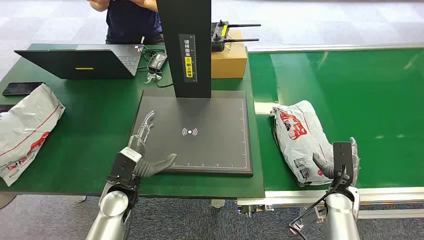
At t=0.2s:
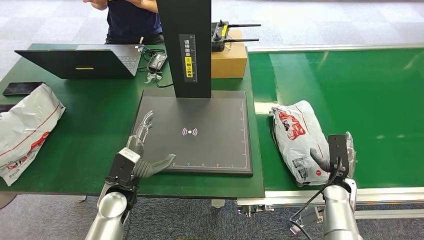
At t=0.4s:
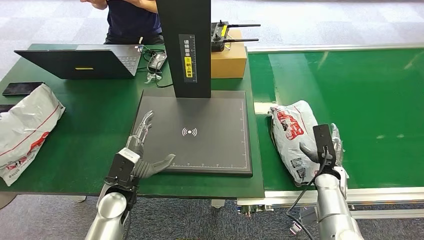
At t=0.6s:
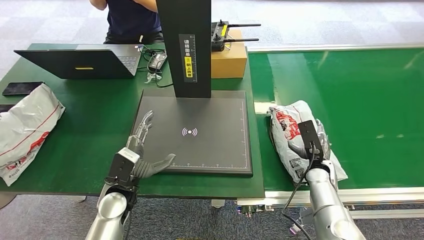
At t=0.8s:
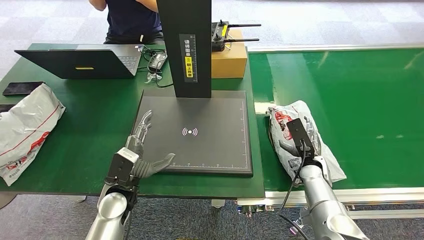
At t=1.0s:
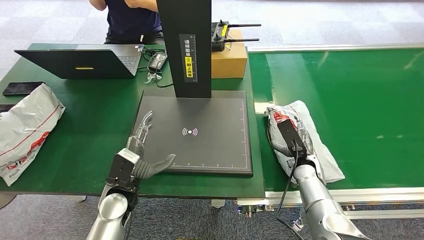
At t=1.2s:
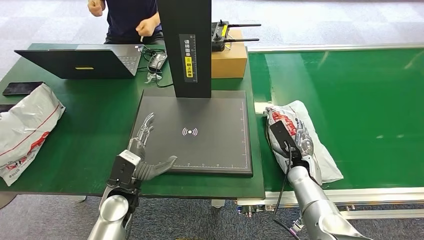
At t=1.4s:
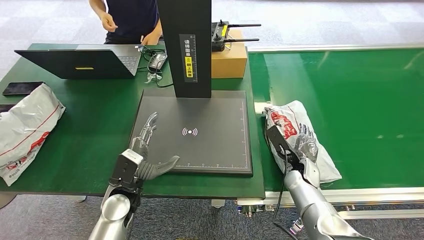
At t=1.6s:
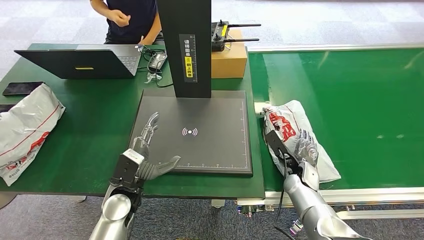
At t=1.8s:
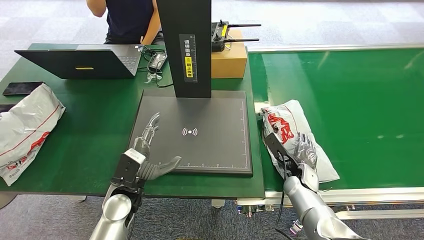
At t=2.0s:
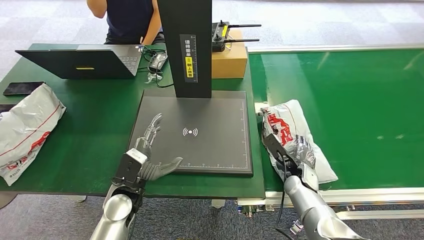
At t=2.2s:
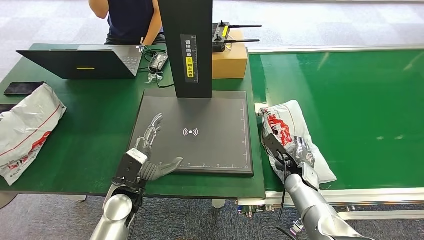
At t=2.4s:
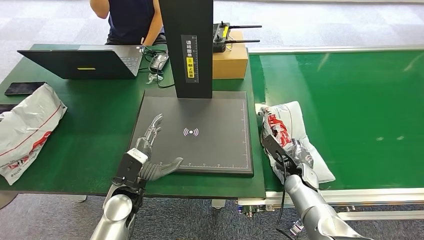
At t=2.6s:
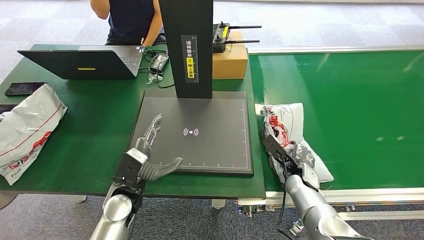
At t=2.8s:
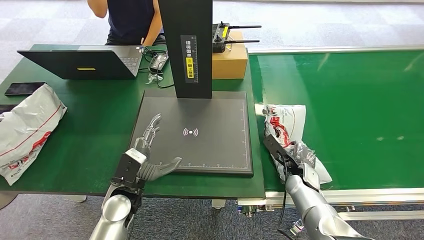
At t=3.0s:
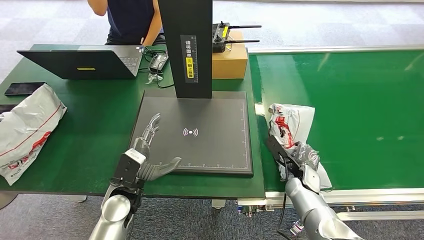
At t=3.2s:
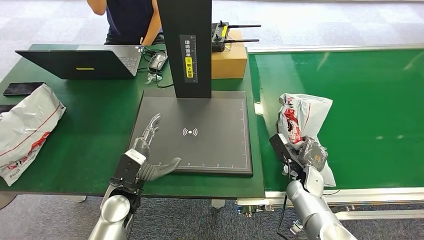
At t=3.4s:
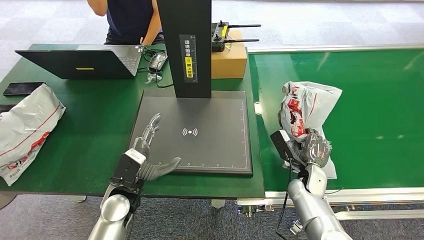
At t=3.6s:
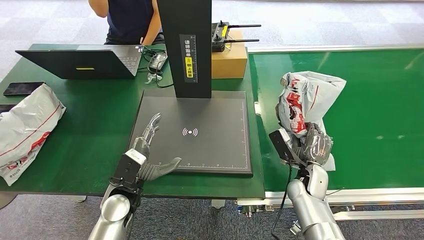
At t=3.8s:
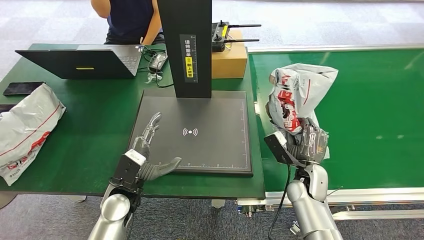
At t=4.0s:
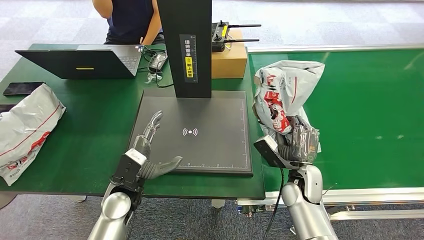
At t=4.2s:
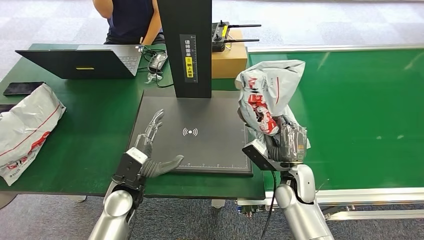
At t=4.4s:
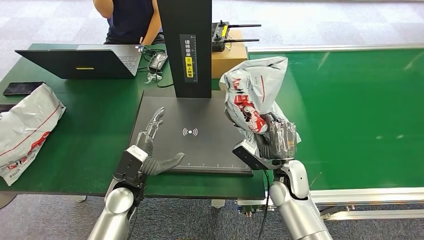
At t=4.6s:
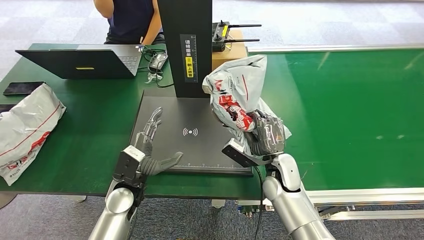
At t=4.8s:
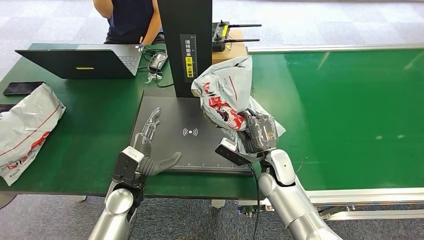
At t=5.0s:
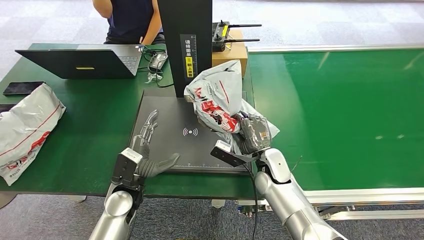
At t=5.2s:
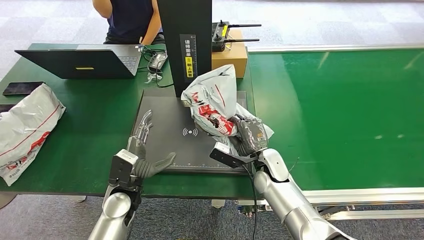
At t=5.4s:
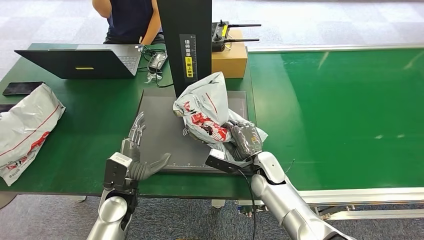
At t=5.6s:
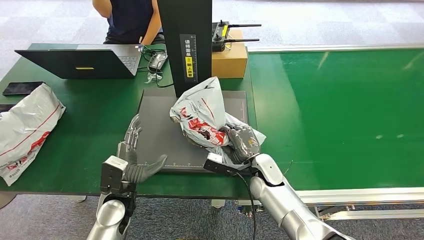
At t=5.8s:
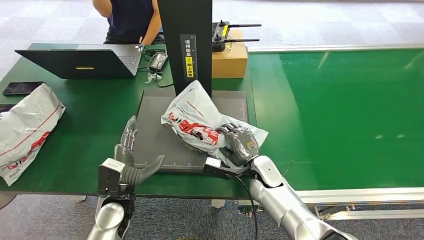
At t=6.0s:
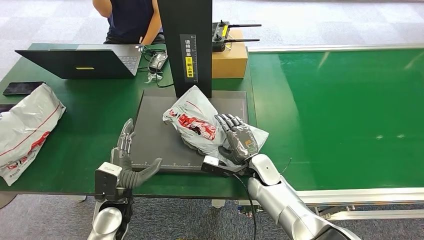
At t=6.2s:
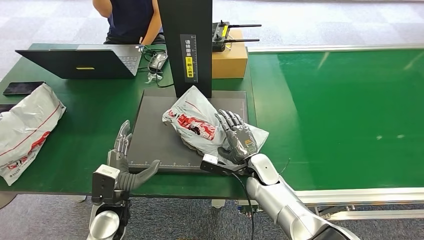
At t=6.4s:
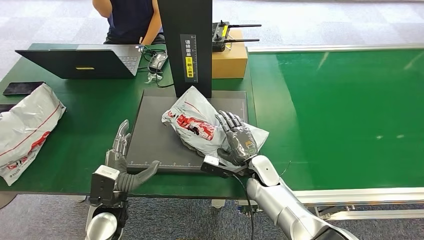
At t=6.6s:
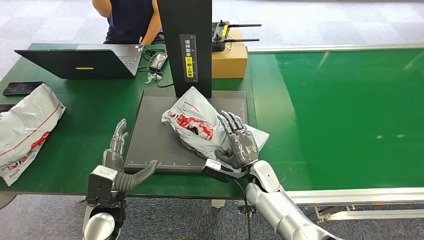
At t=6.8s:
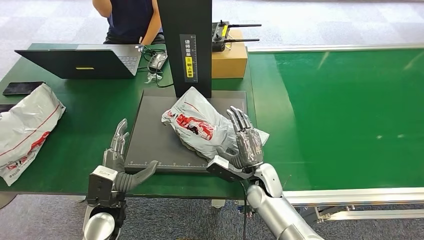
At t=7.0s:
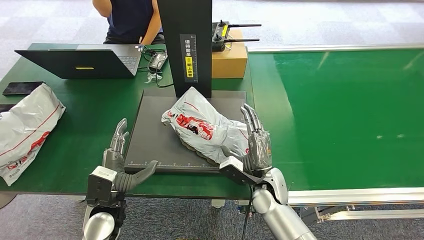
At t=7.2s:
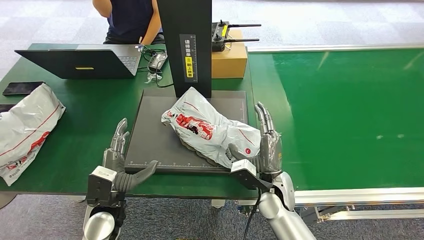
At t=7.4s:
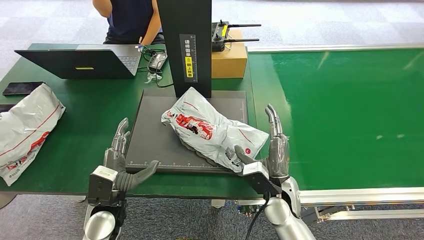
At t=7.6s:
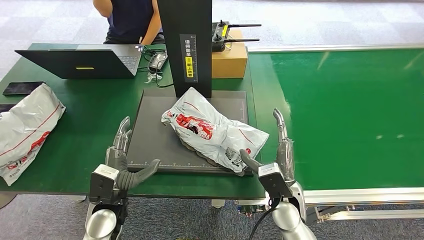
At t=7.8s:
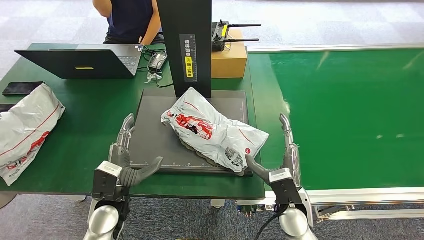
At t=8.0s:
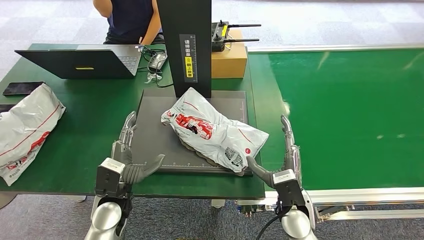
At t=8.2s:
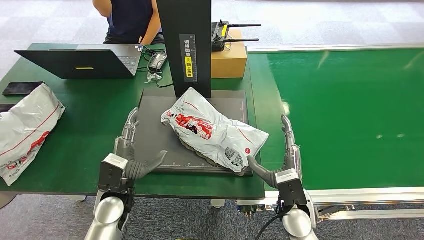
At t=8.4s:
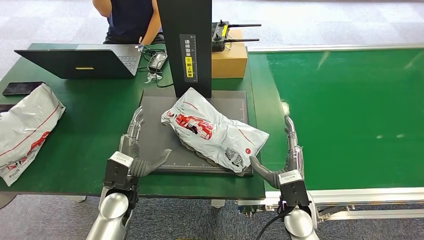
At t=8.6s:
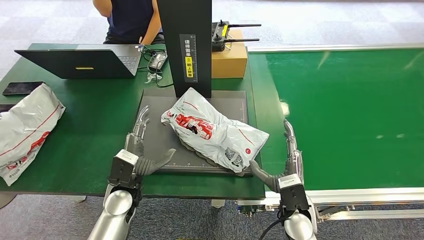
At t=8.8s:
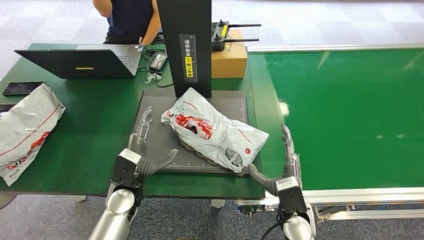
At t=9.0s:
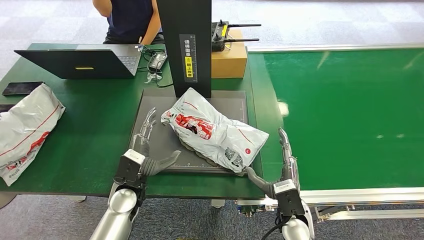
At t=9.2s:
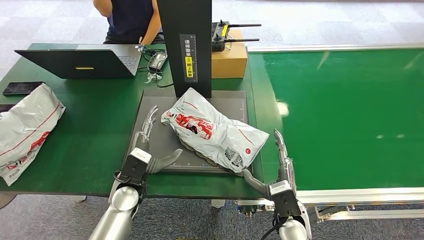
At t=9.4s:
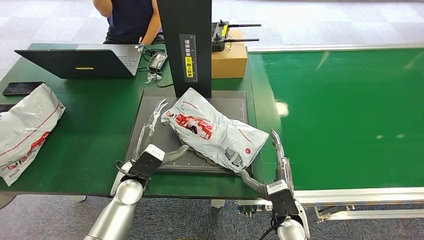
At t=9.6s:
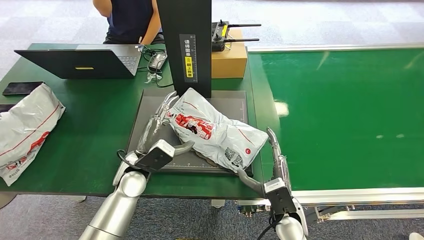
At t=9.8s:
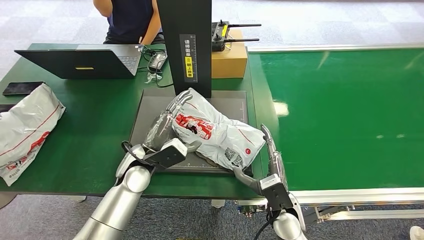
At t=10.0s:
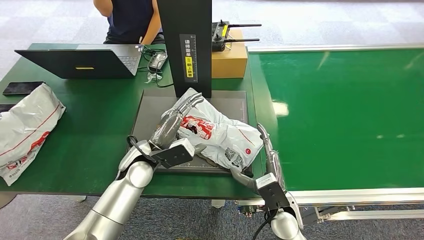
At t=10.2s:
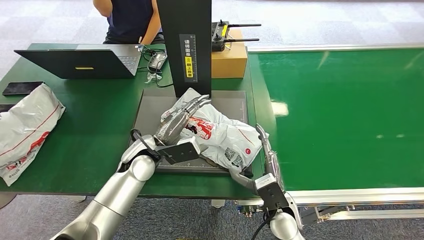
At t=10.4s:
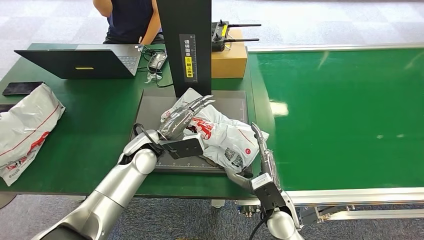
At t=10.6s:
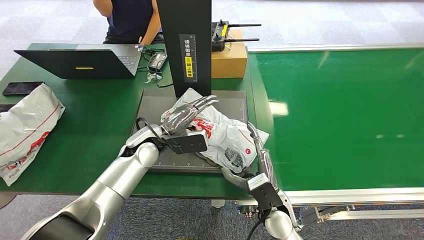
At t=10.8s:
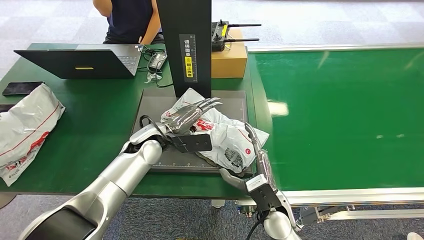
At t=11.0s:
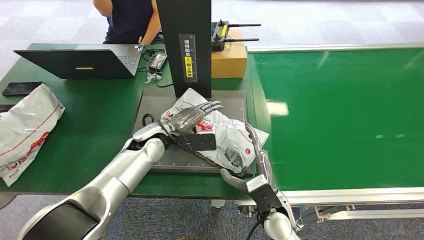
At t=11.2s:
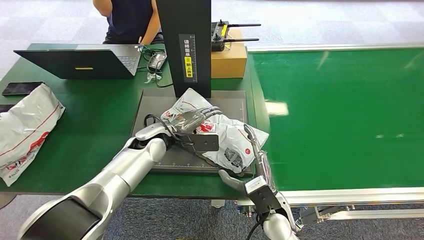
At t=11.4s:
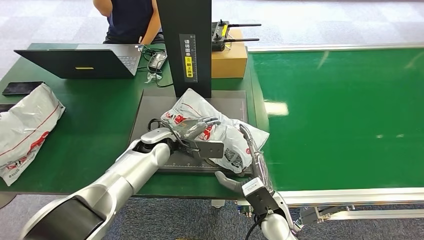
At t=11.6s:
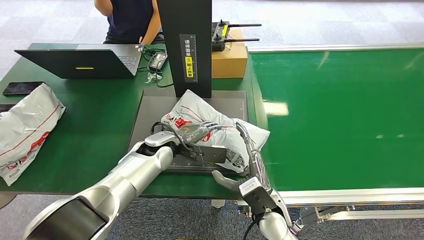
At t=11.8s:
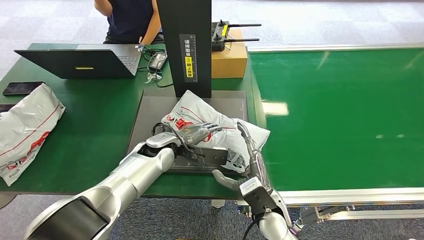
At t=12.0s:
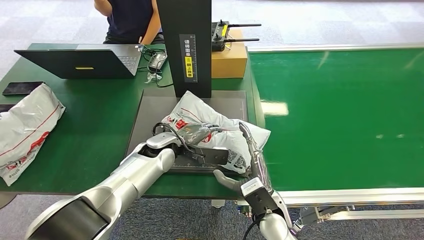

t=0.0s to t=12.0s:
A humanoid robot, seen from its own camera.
Task of the whole recording: Weigh the package on the weighing device and place it in the left basket.
Step, t=0.0s to t=3.6s: Pick up the package from the conveyor belt.
Step, t=3.8s to t=7.4s: Place the package onto the inbound machine.
t=1.6s to t=3.0s: There are only small adjustments of the hands.
t=3.0s to t=4.4s: The right hand travels upward and to the left by roughly 10 cm.
t=4.4s to t=6.0s: The left hand shifts by approximately 5 cm. The right hand is displaced to the left by roughly 5 cm.
t=6.0s to t=7.6s: The right hand shifts roughly 10 cm backward.
t=7.6s to t=9.0s: The right hand ends up roughly 5 cm from where it was. The left hand shifts by approximately 5 cm.
t=9.0s to t=10.4s: The left hand travels forward and upward by approximately 10 cm.

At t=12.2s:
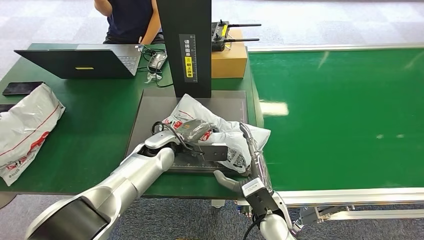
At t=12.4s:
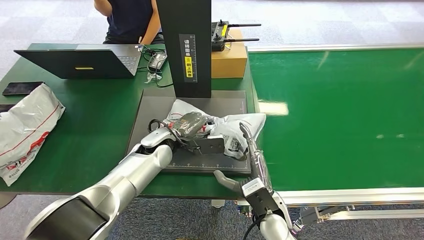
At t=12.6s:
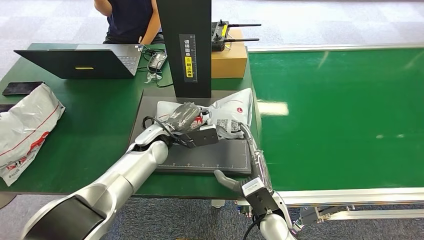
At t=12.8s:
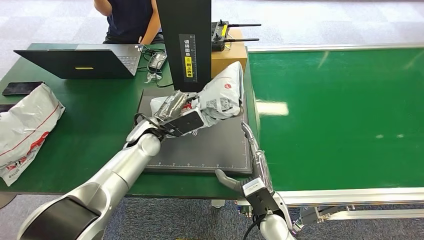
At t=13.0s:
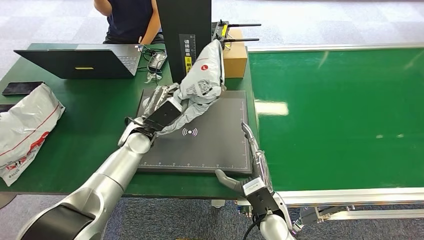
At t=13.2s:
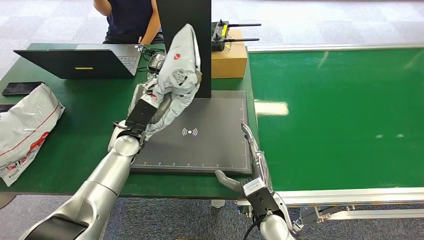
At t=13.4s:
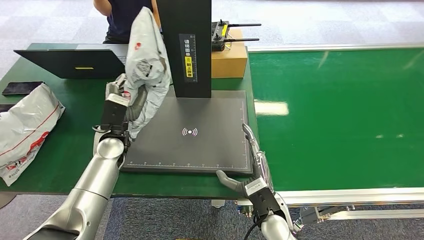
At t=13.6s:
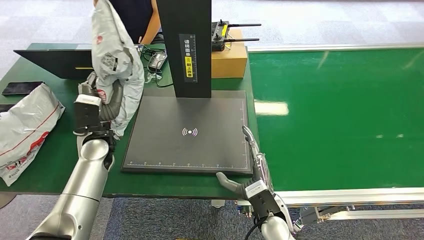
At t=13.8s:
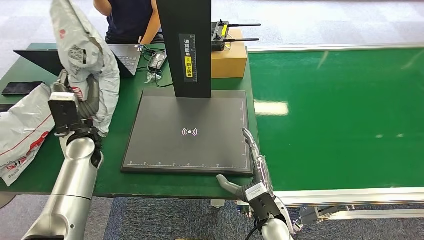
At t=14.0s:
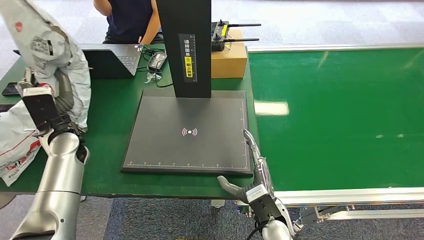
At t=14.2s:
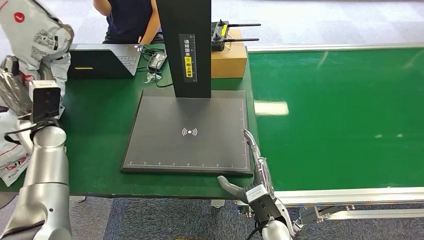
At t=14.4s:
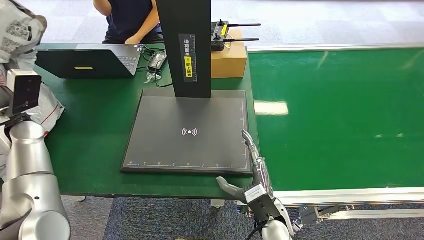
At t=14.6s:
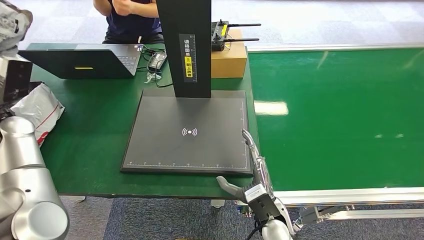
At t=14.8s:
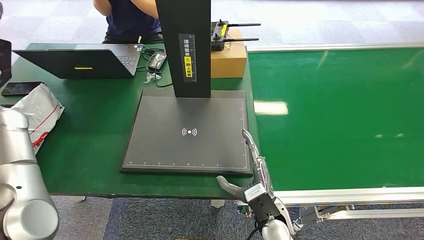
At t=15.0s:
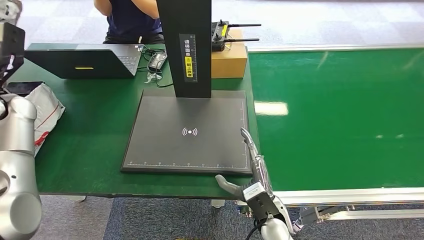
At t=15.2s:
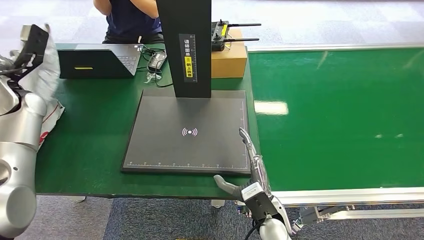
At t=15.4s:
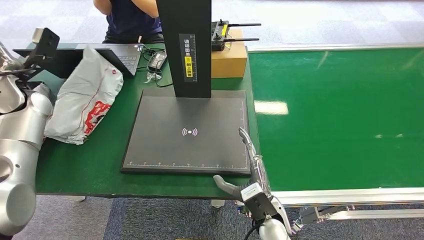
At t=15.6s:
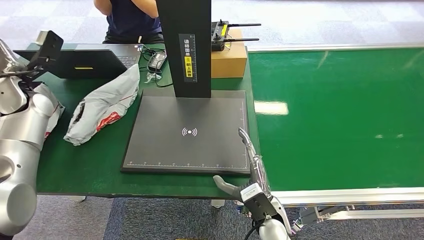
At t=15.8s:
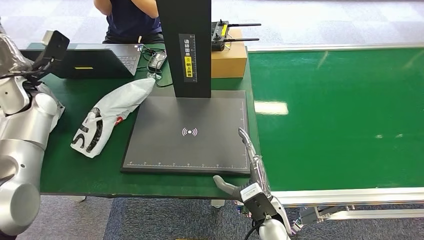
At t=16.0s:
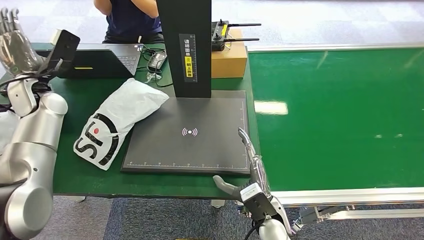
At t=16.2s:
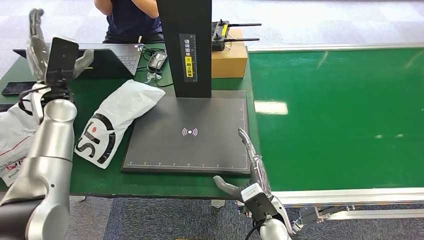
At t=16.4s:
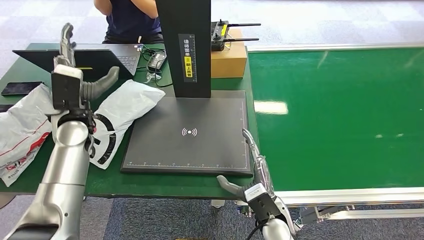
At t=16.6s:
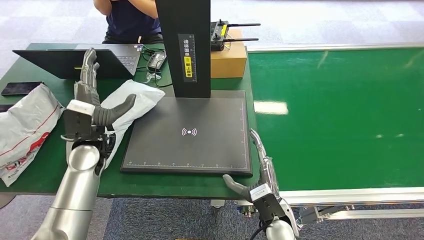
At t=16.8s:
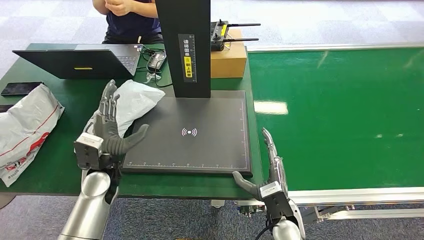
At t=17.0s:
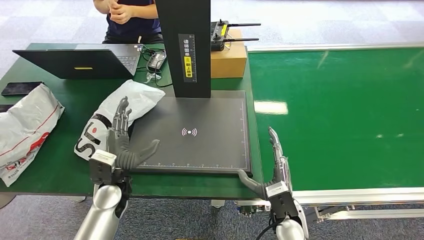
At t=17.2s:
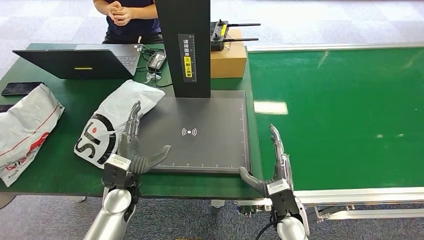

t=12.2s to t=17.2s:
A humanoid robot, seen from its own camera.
Task of the whole recording: Weigh the package on the weighing device and place it in the left basket.
Step, t=13.8s to t=17.2s: Place the package into the parcel locker.
t=13.8s to t=15.6s: The left hand is displaced to the left, upward and forward by roughly 15 cm.
